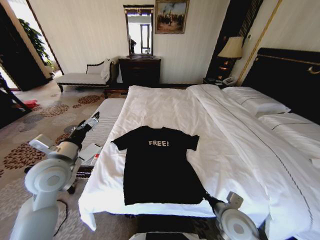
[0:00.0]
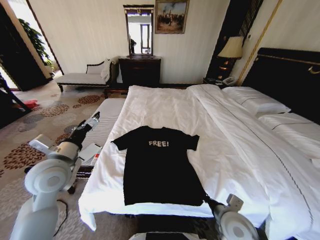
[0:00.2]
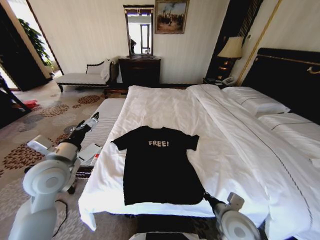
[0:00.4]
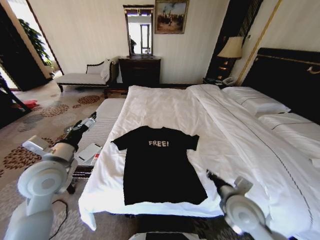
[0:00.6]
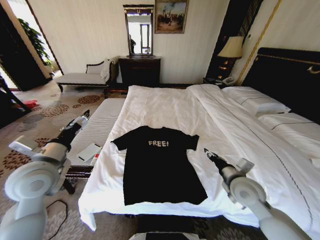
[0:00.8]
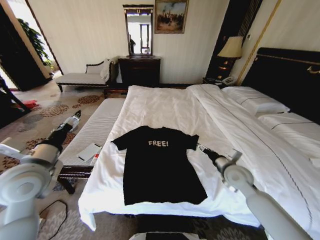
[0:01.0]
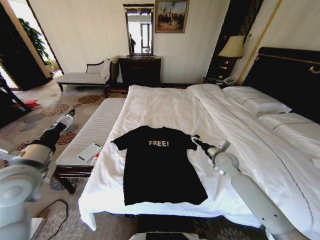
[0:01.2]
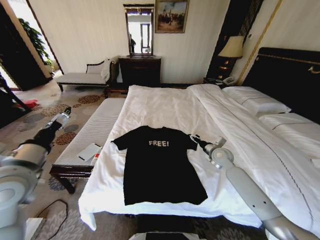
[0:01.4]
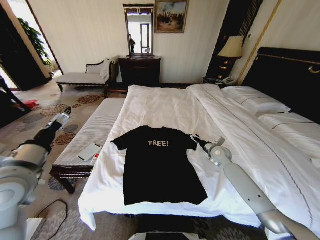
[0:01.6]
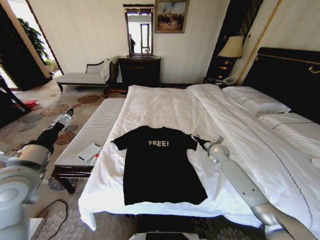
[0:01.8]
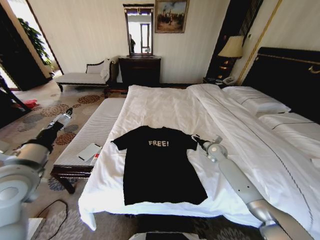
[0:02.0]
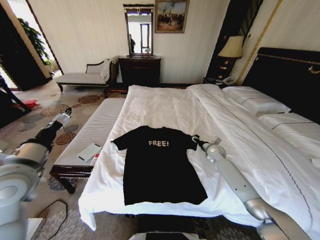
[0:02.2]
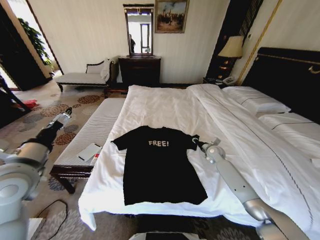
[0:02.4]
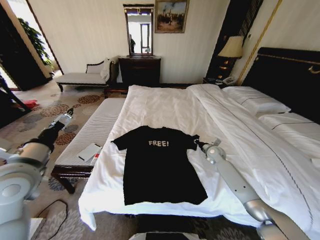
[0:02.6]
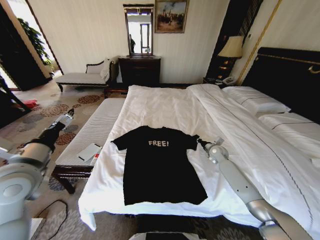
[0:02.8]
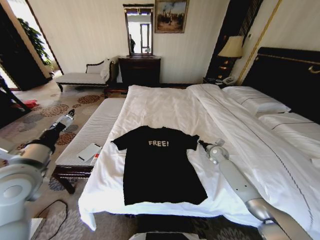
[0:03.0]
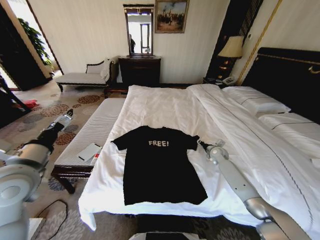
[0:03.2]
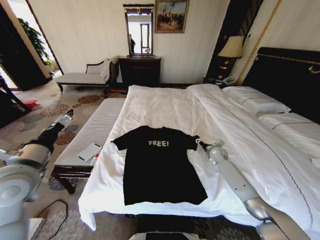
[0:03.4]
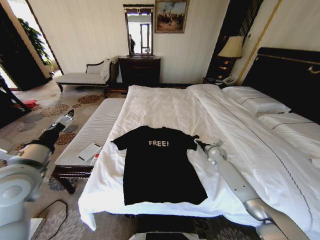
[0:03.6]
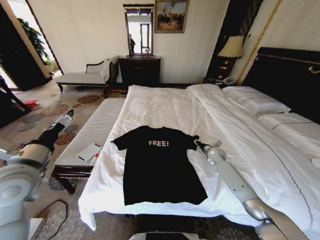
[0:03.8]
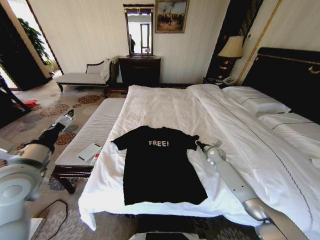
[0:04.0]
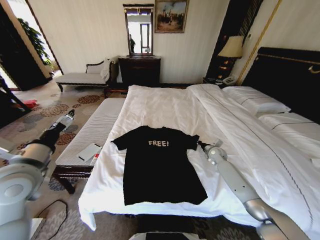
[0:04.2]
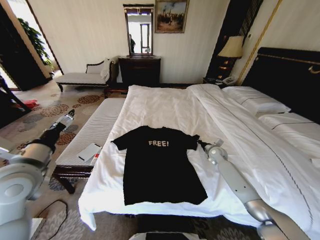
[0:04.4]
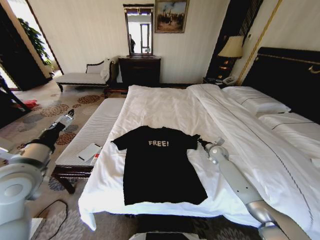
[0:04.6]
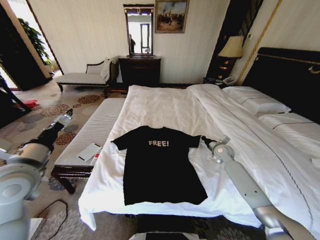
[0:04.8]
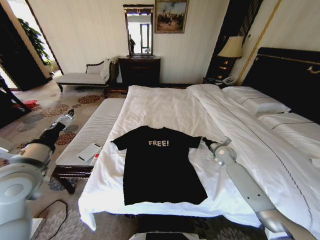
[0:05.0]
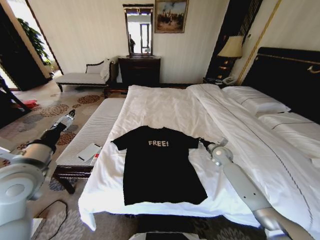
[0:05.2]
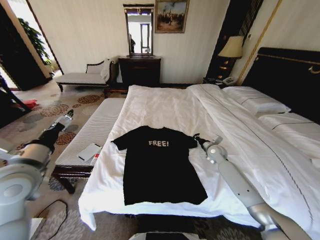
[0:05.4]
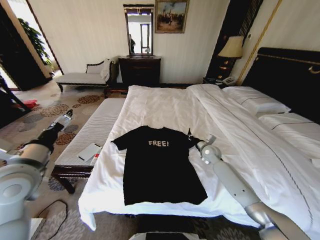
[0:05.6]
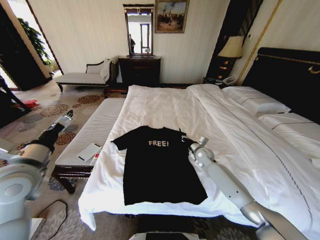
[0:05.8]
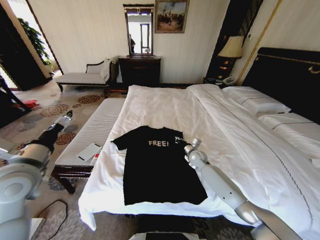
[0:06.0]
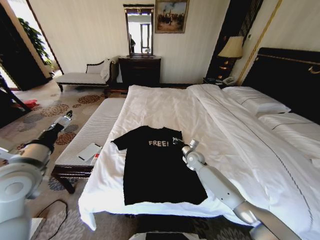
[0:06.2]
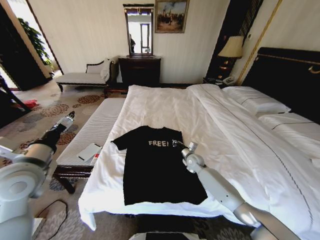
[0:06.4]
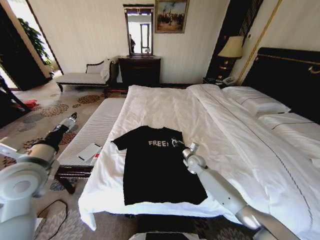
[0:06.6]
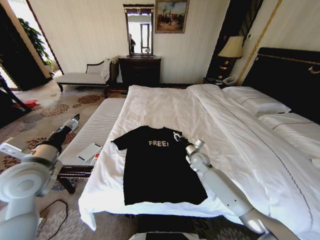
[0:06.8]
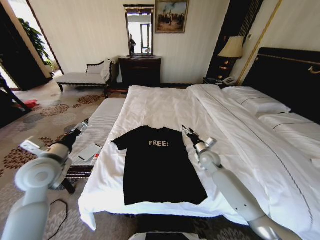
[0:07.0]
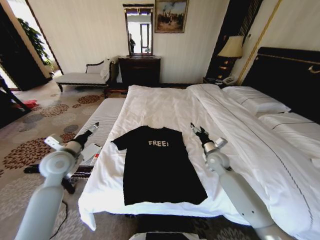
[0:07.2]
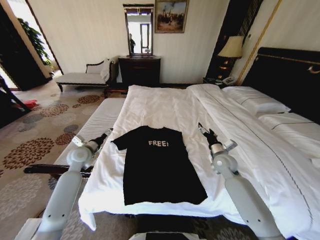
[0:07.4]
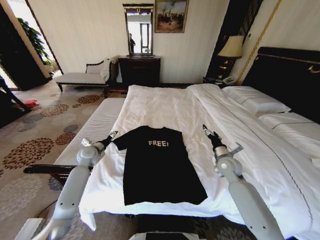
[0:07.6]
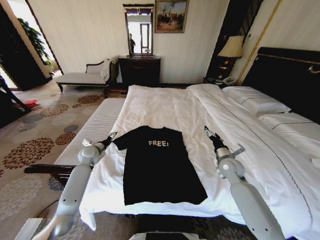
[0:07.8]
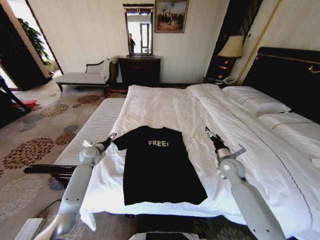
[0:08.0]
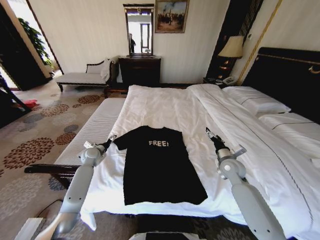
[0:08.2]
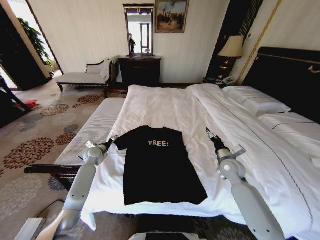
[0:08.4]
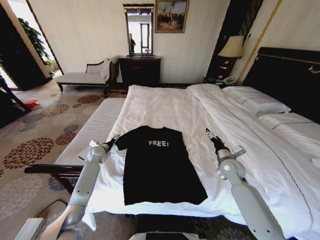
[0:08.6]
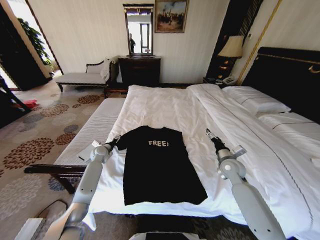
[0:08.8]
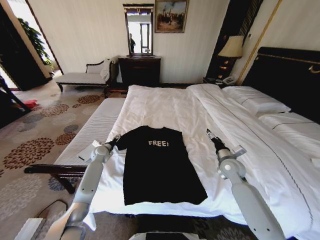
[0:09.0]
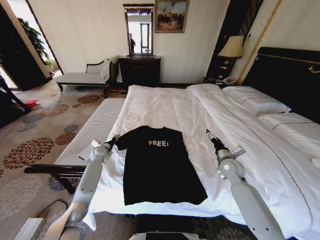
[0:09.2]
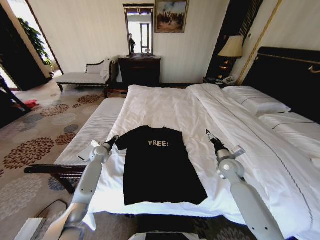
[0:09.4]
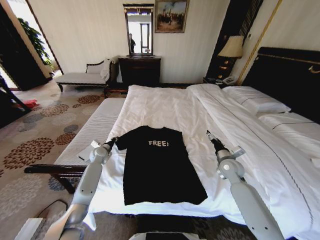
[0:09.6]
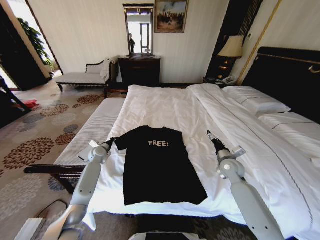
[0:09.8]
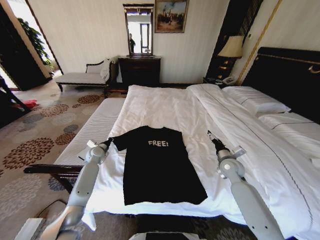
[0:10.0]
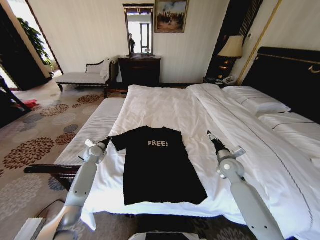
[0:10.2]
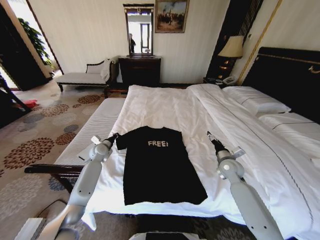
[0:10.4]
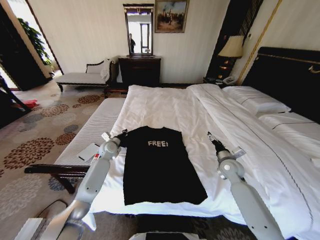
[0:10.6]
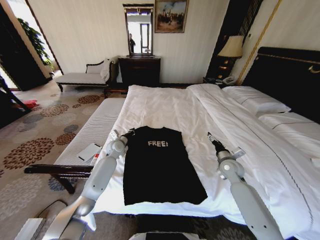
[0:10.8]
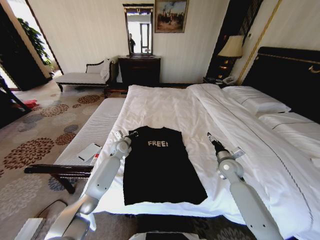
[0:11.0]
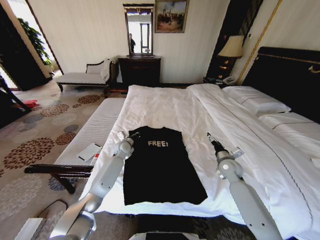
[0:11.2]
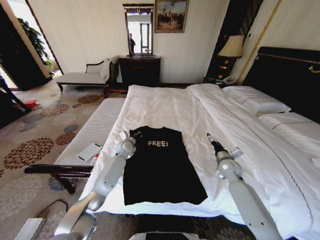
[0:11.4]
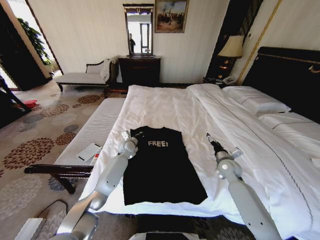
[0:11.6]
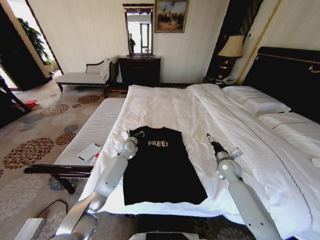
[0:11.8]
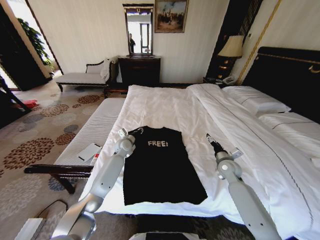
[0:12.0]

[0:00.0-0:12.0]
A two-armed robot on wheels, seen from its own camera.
Task of the whole recording: Fold the clothes on the bed.
0:00.0 to 0:01.6: The left gripper changes place by roughly 5 cm. The right gripper goes roughly 30 cm forward, and opens.
0:01.6 to 0:03.0: The right gripper moves some 5 cm, and closes up.
0:03.0 to 0:04.4: The right gripper opens, then closes again.
0:04.4 to 0:06.0: The right gripper heads to the left, covering about 10 cm.
0:06.0 to 0:07.6: The right gripper is displaced backward, to the right and upward by roughly 15 cm, and opens; the left gripper travels forward and downward by some 25 cm.
0:07.6 to 0:09.0: The left gripper travels downward and forward by about 10 cm.
0:09.0 to 0:10.4: The left gripper closes up.
0:10.4 to 0:12.0: The left gripper moves to the right, some 15 cm.

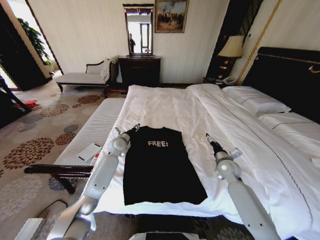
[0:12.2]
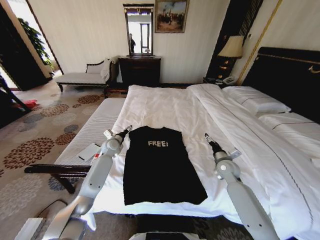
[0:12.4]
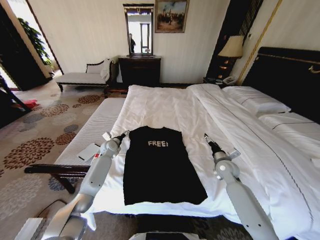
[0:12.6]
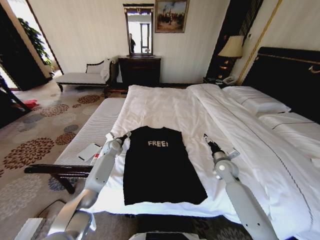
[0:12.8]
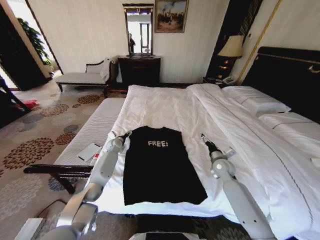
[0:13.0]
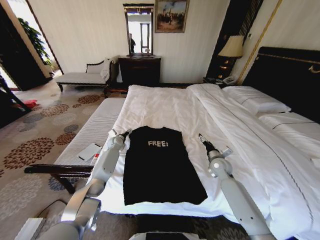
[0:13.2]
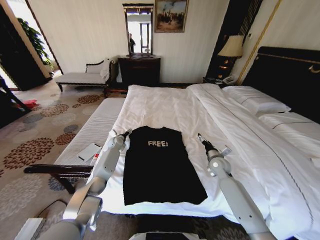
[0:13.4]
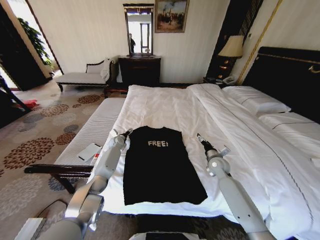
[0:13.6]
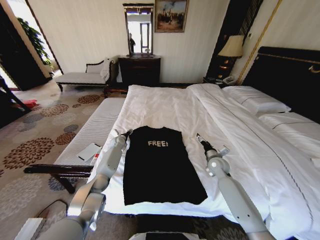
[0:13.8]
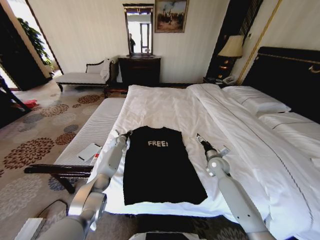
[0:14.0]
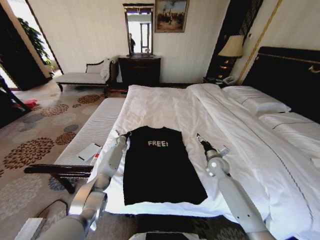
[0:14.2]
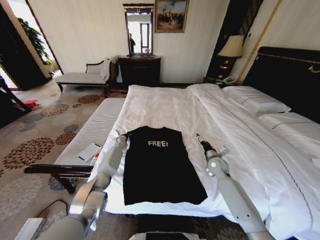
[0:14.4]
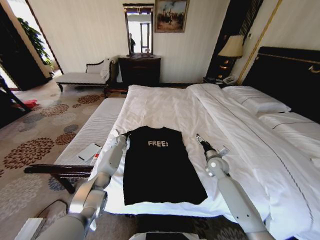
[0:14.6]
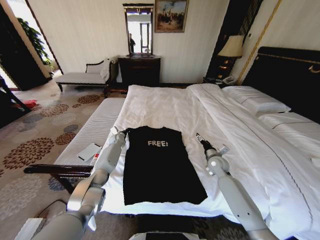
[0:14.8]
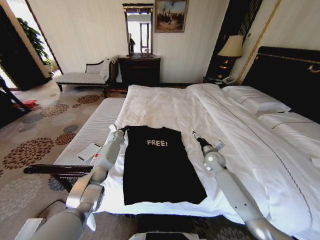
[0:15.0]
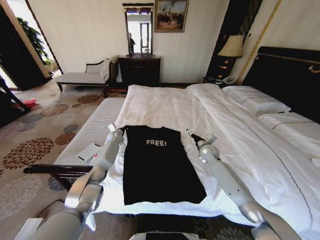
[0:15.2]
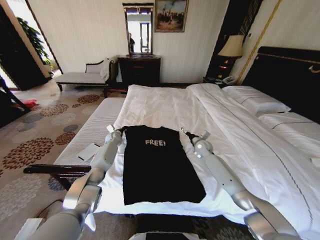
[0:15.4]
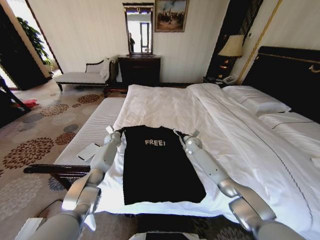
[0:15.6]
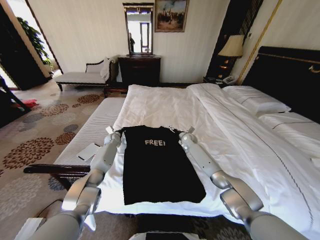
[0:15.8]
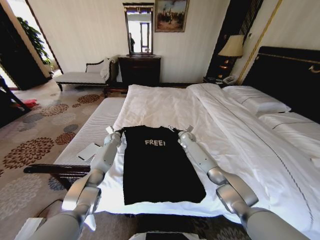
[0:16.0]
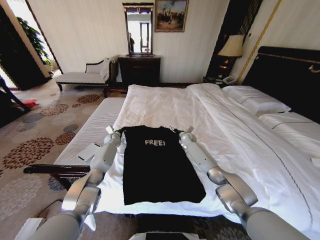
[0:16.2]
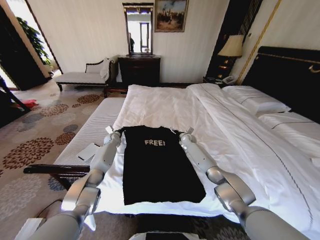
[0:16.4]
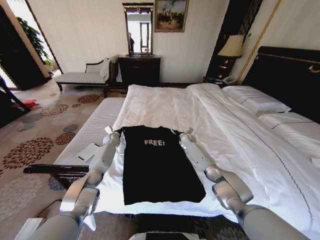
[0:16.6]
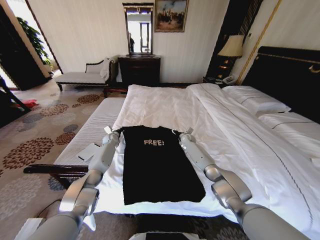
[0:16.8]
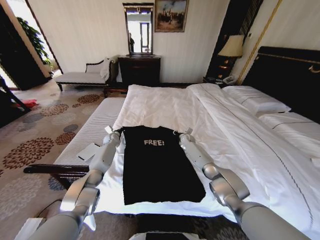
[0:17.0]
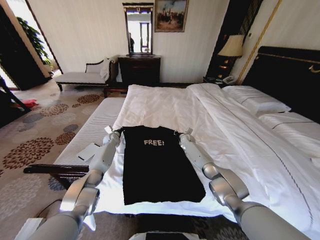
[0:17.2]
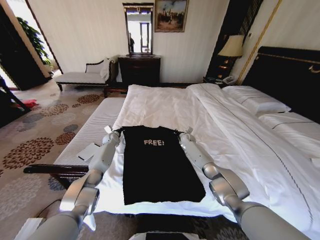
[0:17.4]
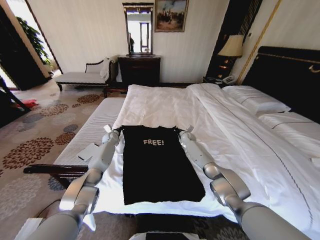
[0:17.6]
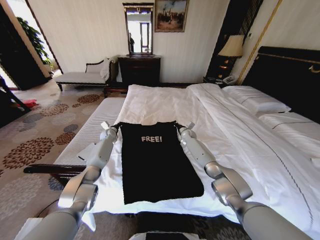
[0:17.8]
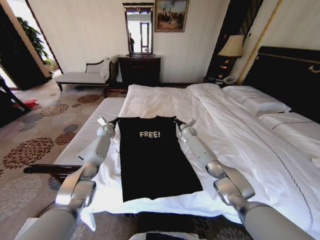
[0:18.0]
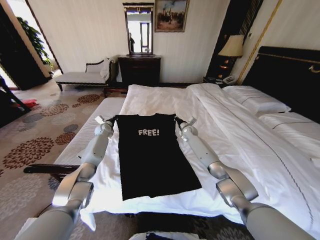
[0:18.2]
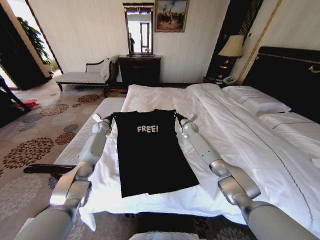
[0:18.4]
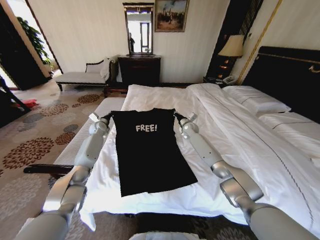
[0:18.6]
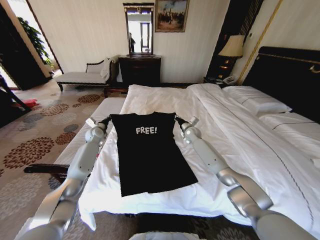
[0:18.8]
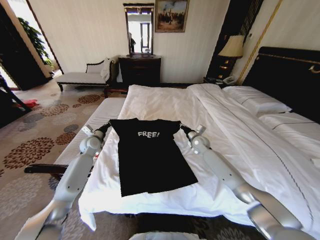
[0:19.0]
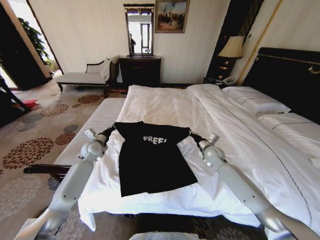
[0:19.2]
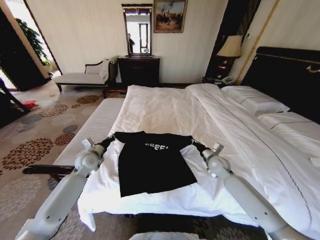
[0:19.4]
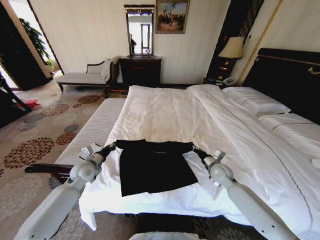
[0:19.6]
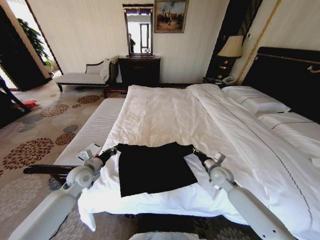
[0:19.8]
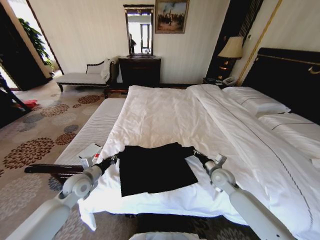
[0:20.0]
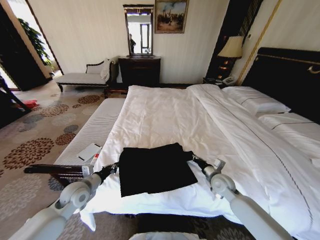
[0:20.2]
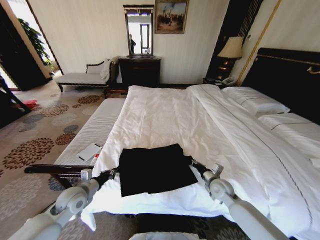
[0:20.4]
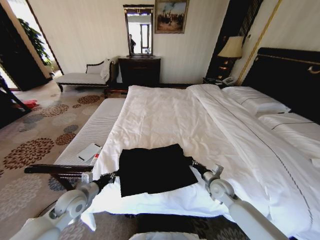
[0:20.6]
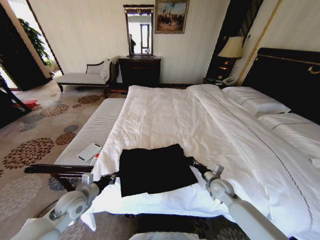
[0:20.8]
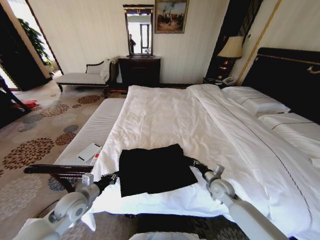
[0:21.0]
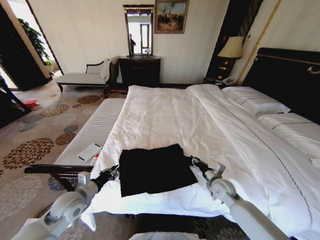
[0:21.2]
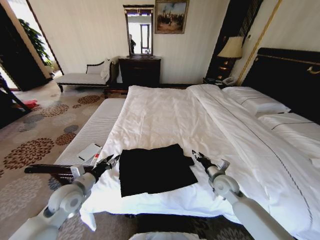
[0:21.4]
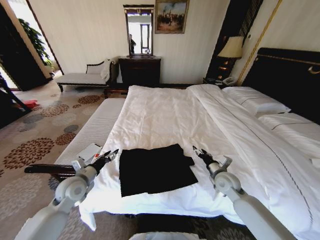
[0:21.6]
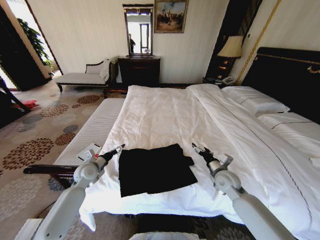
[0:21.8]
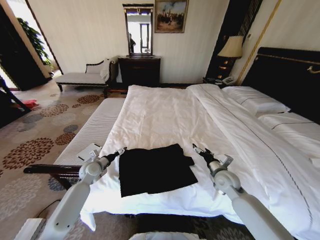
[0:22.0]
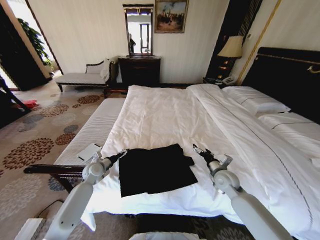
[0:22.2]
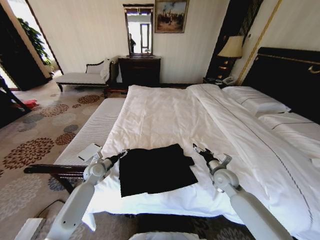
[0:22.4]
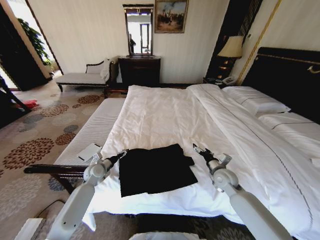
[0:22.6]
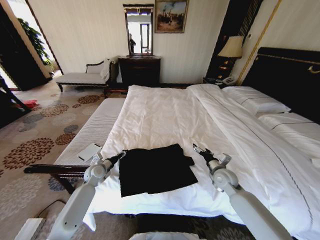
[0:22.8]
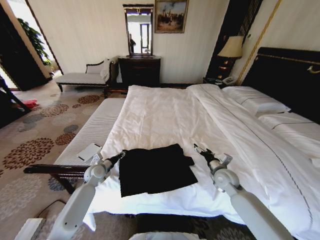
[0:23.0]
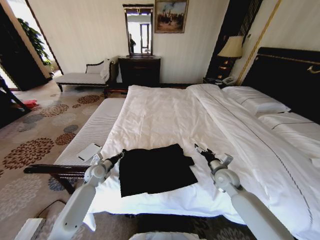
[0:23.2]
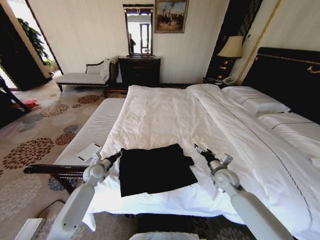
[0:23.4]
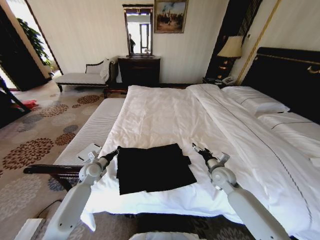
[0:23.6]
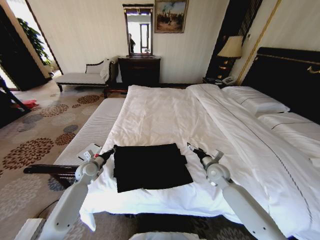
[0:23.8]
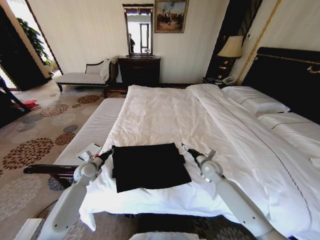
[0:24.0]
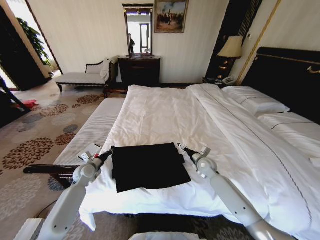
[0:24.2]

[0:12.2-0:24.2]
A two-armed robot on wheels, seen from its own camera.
Task of the whole recording: Fold the clothes on the bed.
0:12.2 to 0:13.8: The left gripper heads forward and downward, covering some 10 cm.
0:13.8 to 0:15.2: The left gripper closes its fingers. Meanwhile the right gripper shifts roughly 5 cm forward.
0:15.2 to 0:16.6: The right gripper travels forward and to the left by approximately 15 cm.
0:16.6 to 0:18.2: Both grippers move upward, about 5 cm. The right gripper closes up.
0:18.2 to 0:19.8: The two grippers go roughly 30 cm backward.
0:19.8 to 0:21.2: The right gripper shifts by roughly 5 cm. Meanwhile the left gripper travels backward by approximately 10 cm.
0:21.2 to 0:22.6: The left gripper is displaced forward and downward by some 20 cm, and opens. The right gripper shifts by some 5 cm, and opens.
0:22.6 to 0:24.2: The right gripper heads forward, covering approximately 10 cm. The left gripper closes up.
